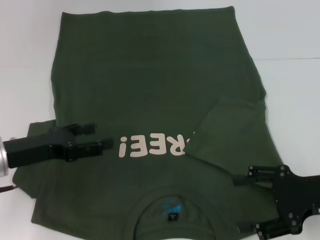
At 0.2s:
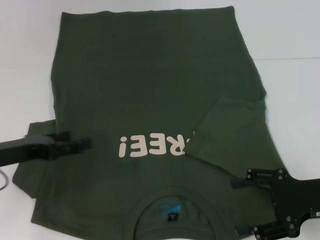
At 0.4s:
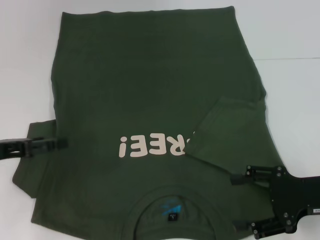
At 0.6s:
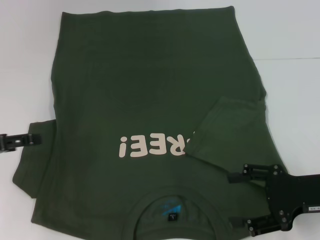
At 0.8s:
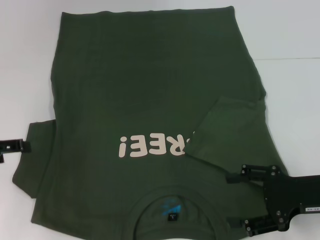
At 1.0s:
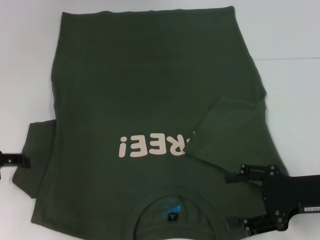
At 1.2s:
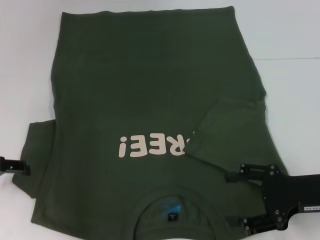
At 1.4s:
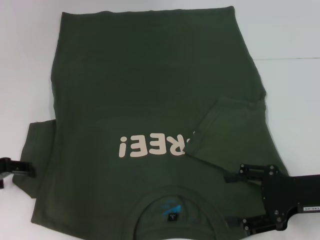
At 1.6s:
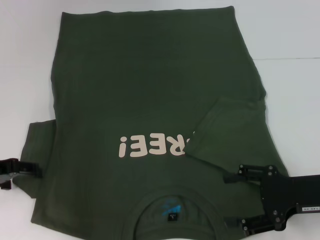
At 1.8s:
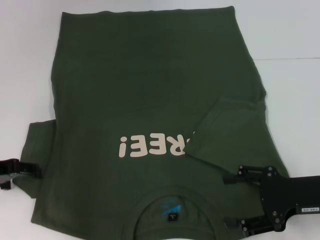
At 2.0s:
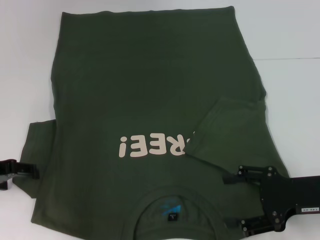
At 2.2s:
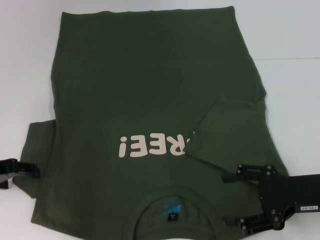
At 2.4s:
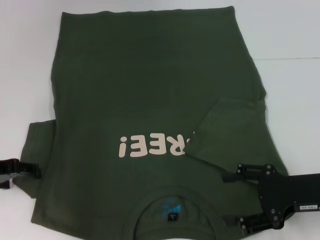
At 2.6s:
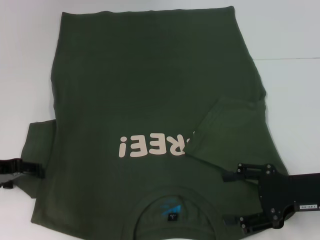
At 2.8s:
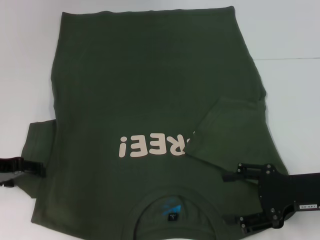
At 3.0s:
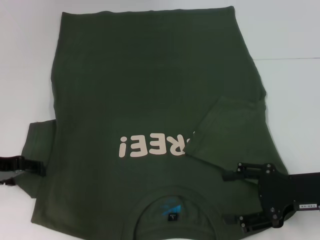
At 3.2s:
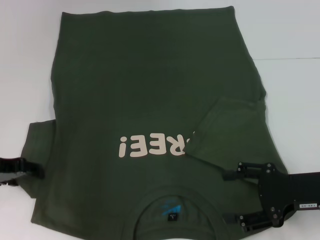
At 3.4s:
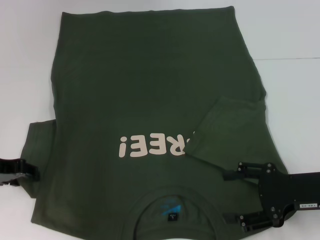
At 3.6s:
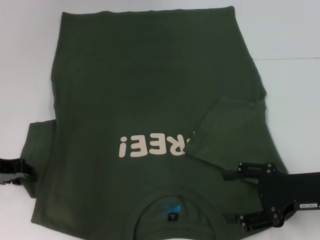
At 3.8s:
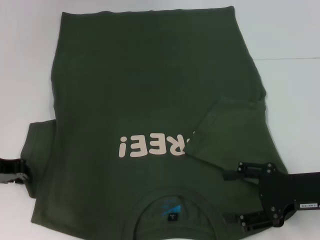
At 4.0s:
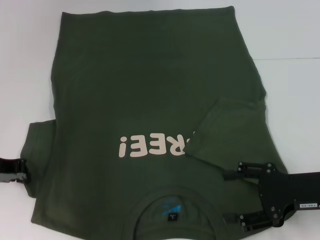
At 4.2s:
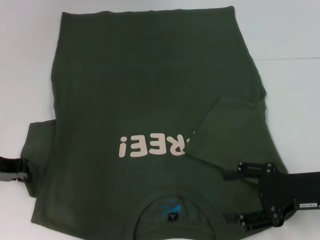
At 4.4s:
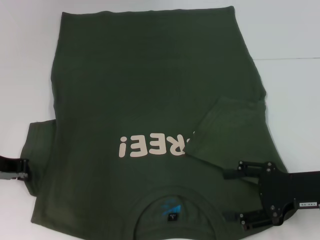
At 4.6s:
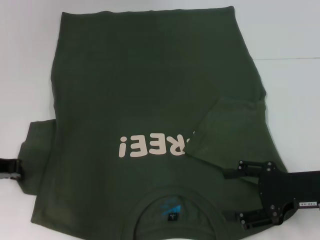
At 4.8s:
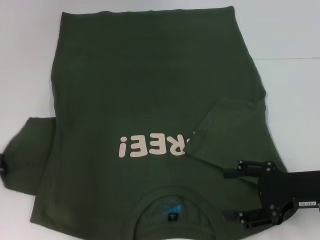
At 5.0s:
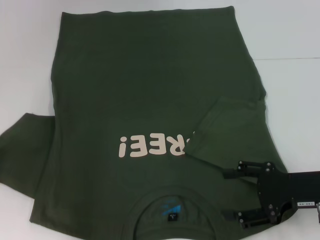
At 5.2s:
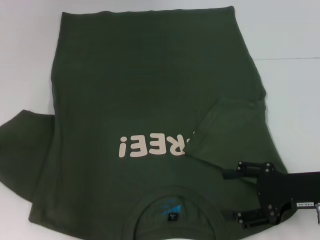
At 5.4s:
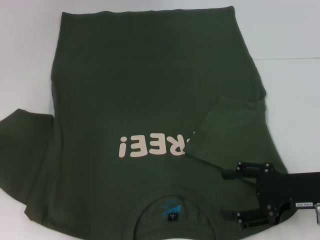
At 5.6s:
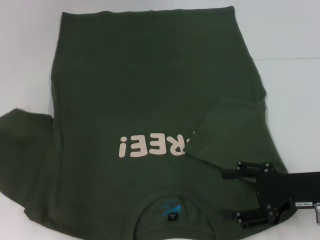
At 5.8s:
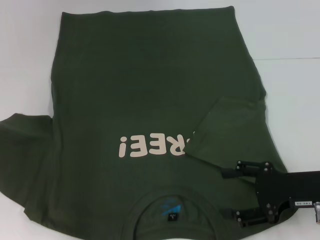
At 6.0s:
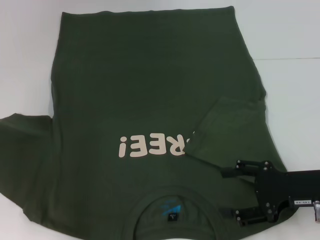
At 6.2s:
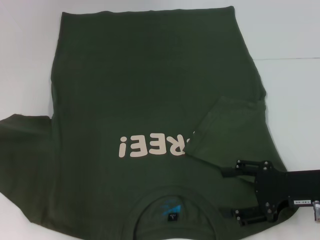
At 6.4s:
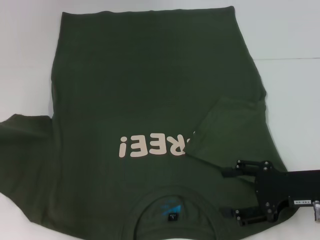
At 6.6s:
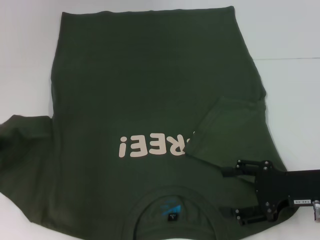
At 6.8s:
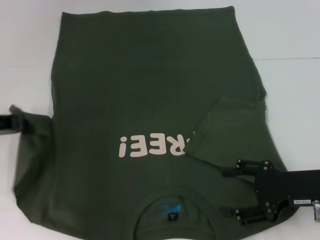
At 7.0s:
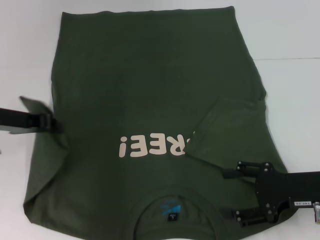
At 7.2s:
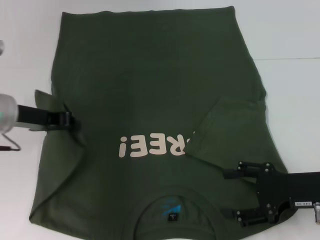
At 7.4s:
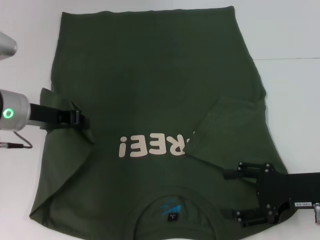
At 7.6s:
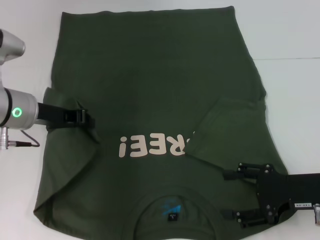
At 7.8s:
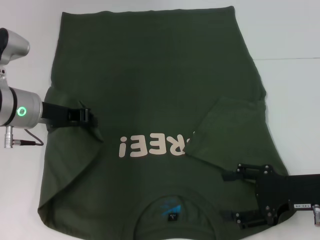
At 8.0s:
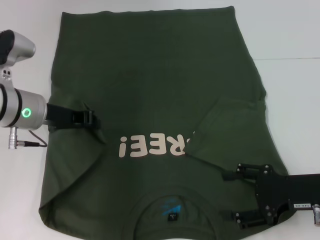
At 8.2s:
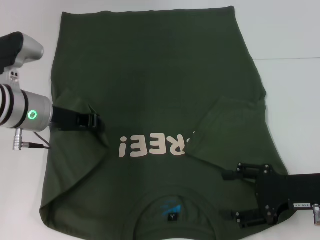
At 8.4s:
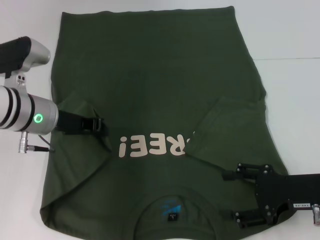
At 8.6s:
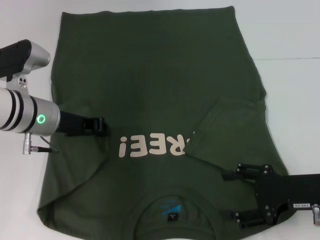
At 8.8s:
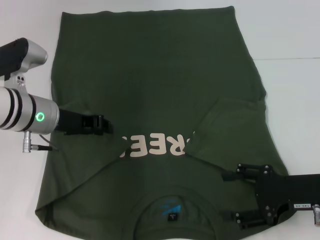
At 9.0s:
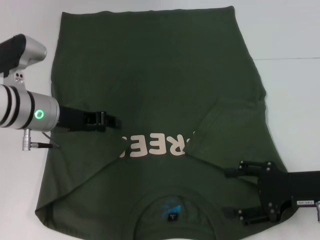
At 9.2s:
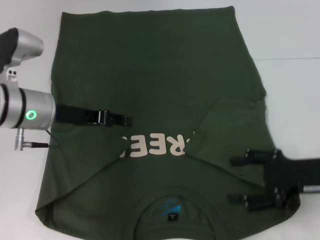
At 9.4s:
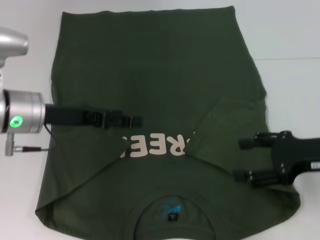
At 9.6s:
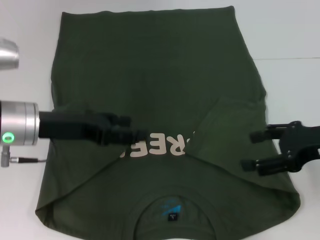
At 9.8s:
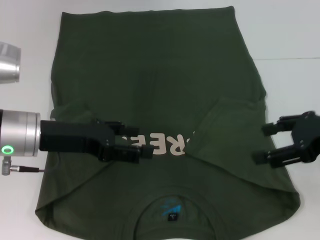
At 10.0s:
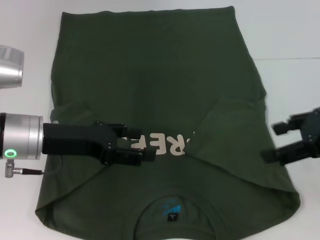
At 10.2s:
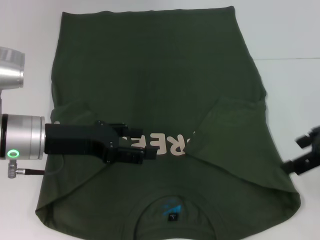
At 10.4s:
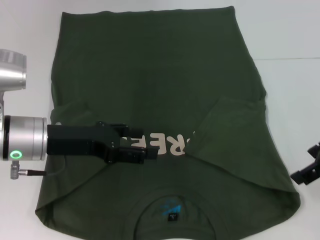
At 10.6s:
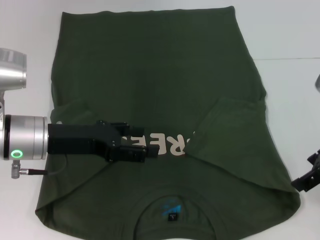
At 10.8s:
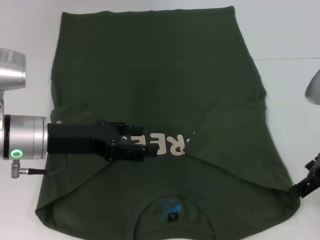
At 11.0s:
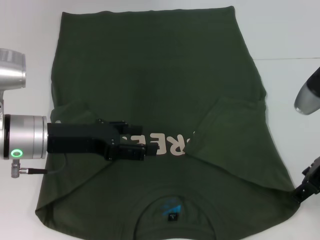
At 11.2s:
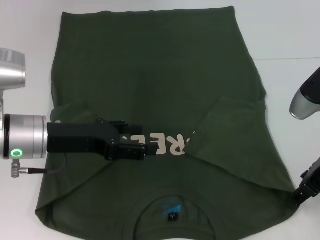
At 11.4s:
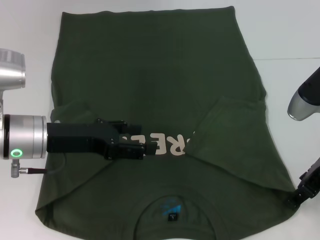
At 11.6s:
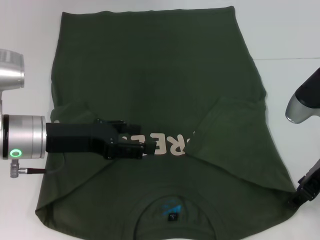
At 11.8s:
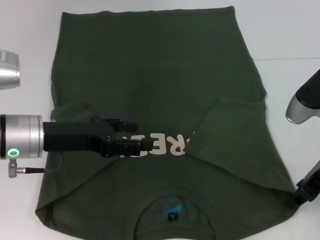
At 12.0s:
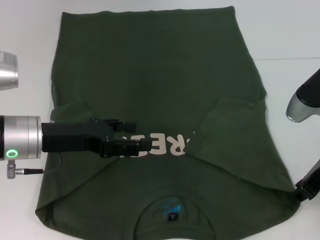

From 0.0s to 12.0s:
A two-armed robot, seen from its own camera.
Step, from 0.0s to 8.6s: Fold the bottom left sleeve with your left hand.
From 1.6s to 3.0s: Neither gripper changes place.
From 3.0s to 4.4s: The left gripper closes.
From 4.4s to 6.0s: The left gripper goes some 5 cm to the left.
From 6.0s to 7.6s: The left gripper shifts roughly 15 cm to the right and forward.
From 7.6s to 9.0s: There are only small adjustments of the grippers.
From 9.0s to 10.4s: The left gripper goes approximately 5 cm backward, and opens. The right gripper goes some 10 cm upward.
From 10.4s to 12.0s: The right gripper travels downward by about 5 cm, and closes its fingers.

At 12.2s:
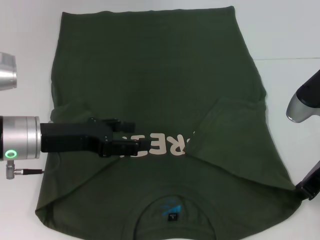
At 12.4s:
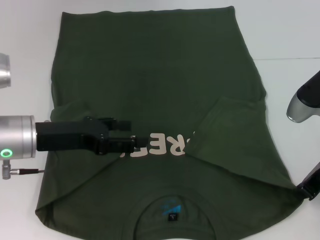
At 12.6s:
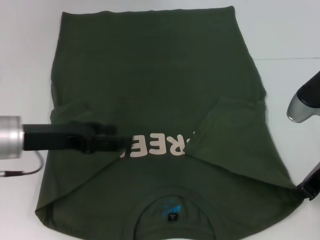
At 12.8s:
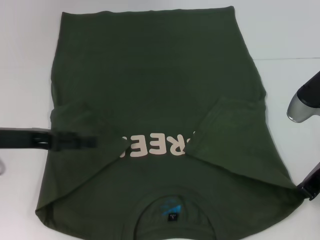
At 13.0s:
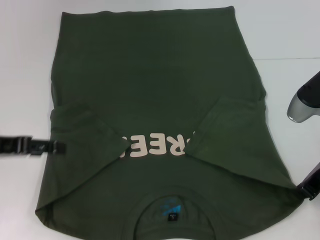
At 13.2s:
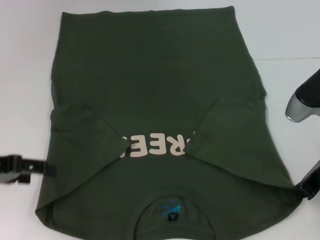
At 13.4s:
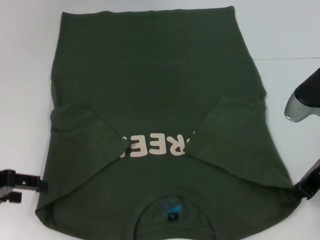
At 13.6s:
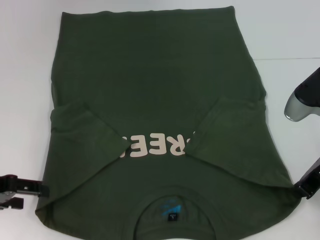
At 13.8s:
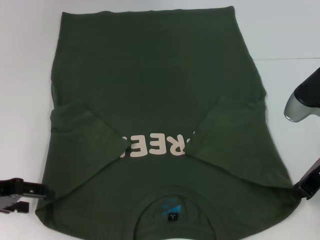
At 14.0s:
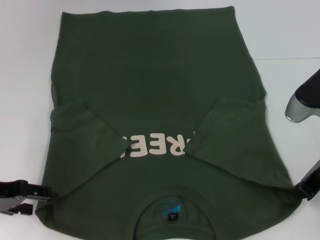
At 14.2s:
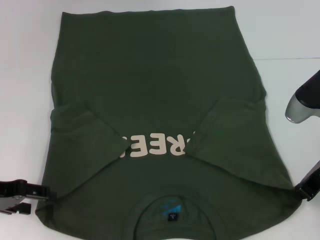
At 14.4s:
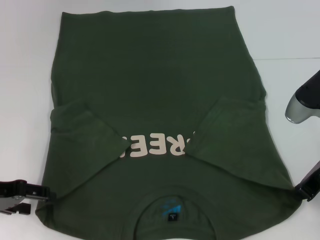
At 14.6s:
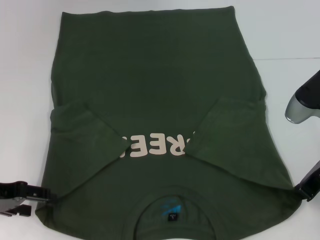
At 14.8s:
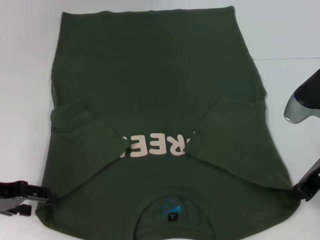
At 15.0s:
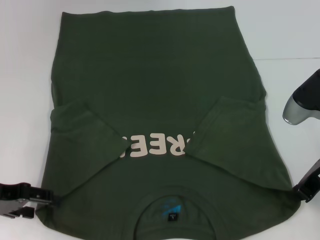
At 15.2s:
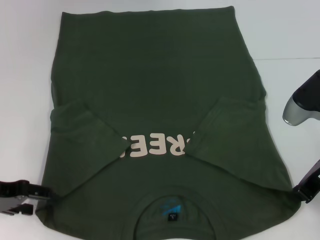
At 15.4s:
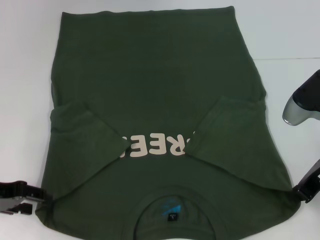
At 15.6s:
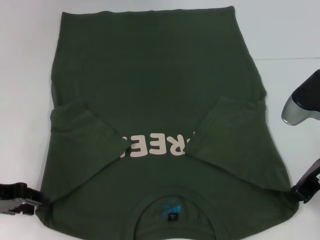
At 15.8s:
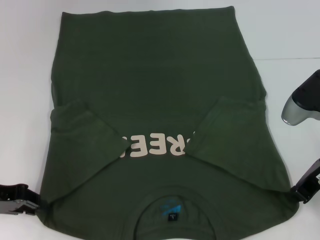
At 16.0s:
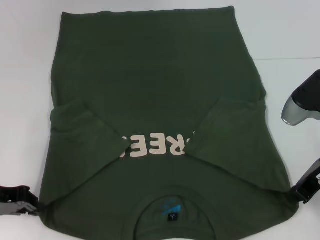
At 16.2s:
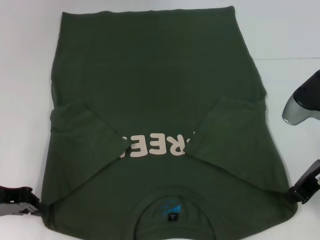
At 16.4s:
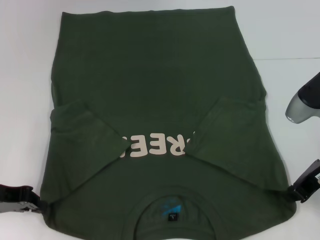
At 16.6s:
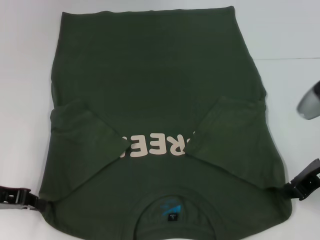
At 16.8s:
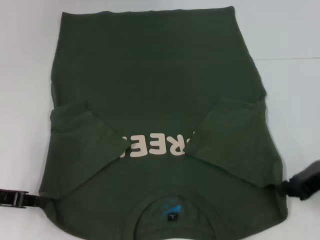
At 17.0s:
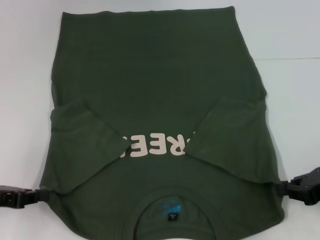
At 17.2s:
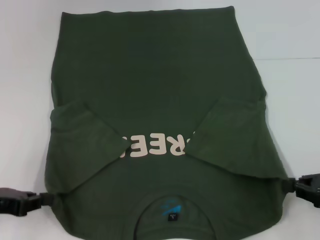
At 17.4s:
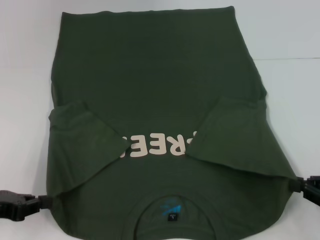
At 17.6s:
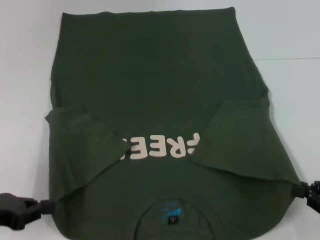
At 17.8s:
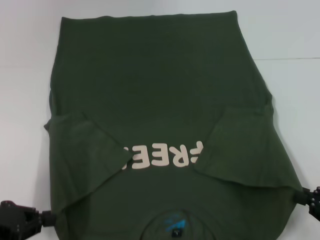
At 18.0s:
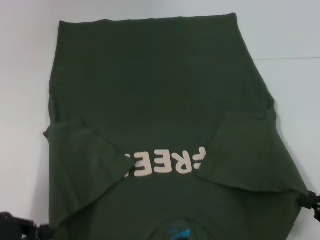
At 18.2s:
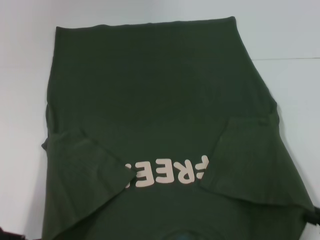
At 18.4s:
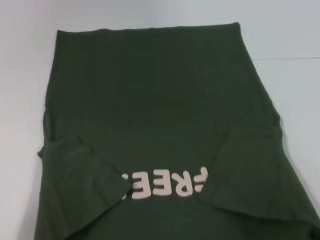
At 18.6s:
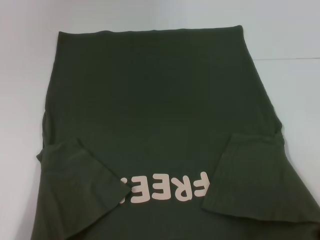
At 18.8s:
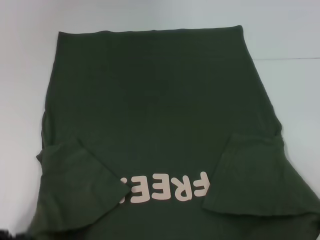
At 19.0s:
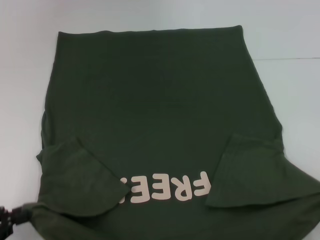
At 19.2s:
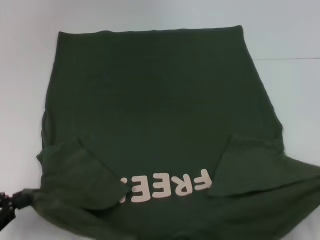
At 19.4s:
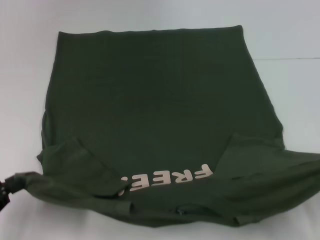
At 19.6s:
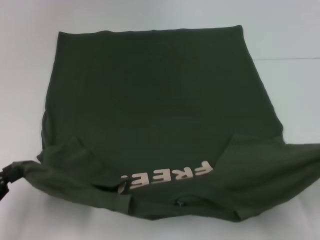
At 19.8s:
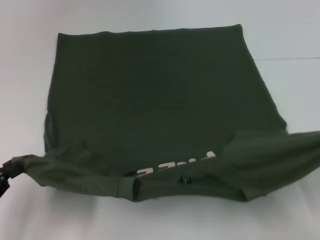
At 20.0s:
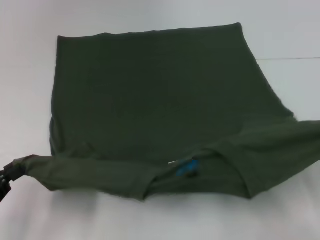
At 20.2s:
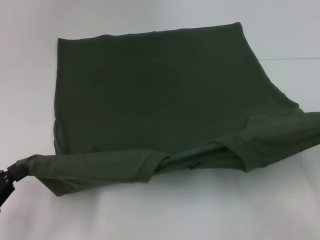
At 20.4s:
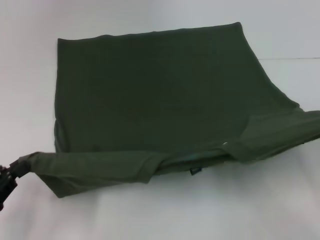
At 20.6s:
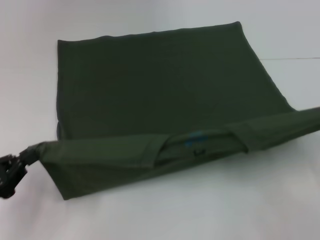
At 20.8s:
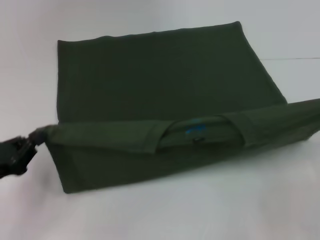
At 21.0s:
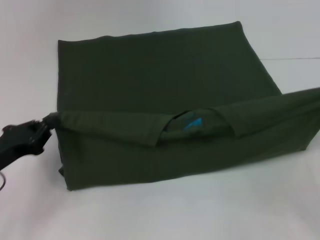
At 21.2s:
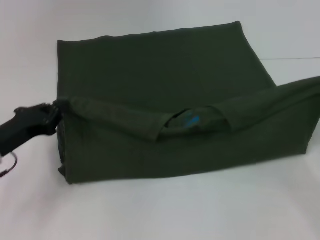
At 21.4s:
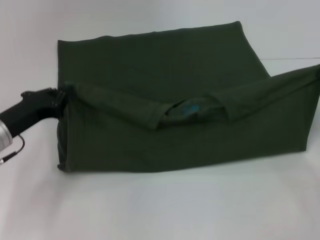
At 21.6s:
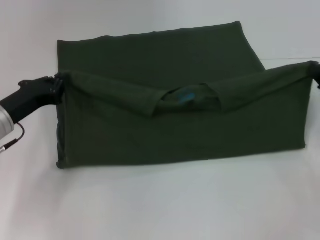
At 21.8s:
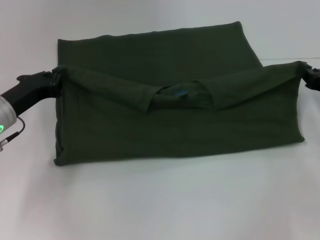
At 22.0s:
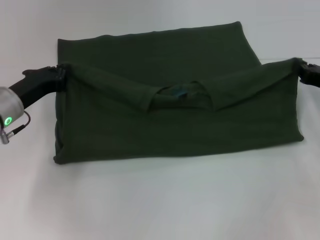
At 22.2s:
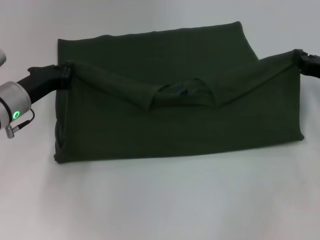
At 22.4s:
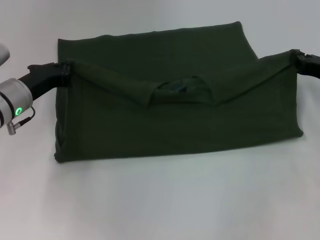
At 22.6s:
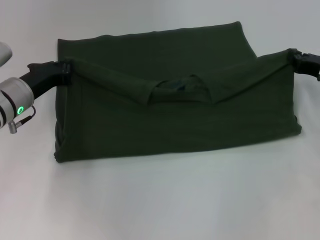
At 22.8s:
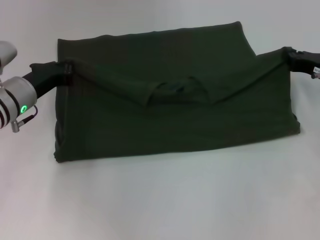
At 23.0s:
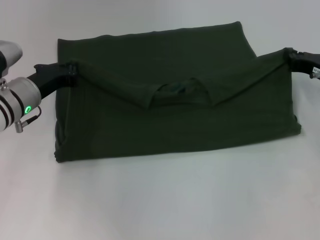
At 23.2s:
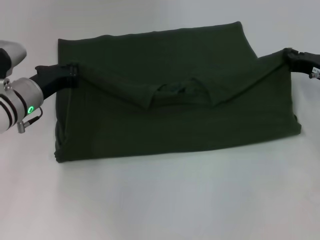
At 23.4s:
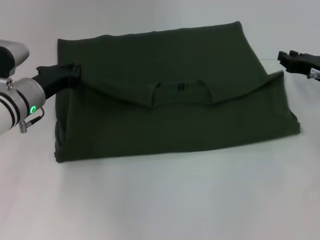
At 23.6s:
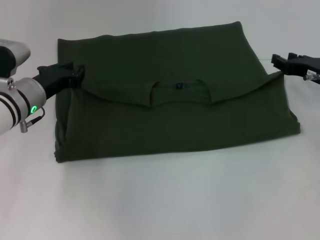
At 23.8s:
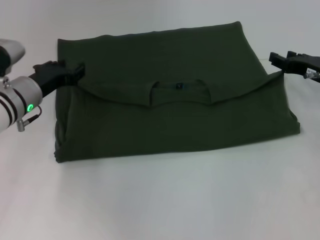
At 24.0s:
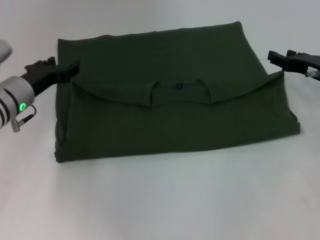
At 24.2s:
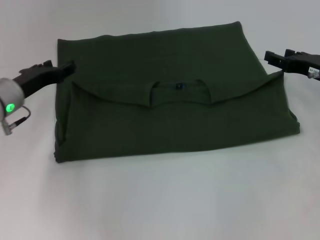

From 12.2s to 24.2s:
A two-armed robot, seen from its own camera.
Step, from 12.8s to 16.0s: Grab the bottom left corner with your left hand.
Step, from 16.2s to 23.2s: Fold the clothes with your right hand.
From 12.2s to 13.8s: The left gripper moves to the left, approximately 10 cm, while the right gripper closes.
From 13.8s to 15.2s: The grippers move only a little.
From 15.2s to 16.6s: The left gripper closes.
From 16.6s to 18.2s: The left gripper goes about 10 cm backward. The right gripper moves backward, to the right and downward, approximately 20 cm.
From 19.8s to 21.2s: The right gripper shifts about 10 cm forward; the left gripper shifts roughly 15 cm forward and to the right.
From 21.2s to 22.6s: The grippers both shift forward by some 10 cm.
From 22.6s to 24.2s: The left gripper opens. The right gripper opens up.
